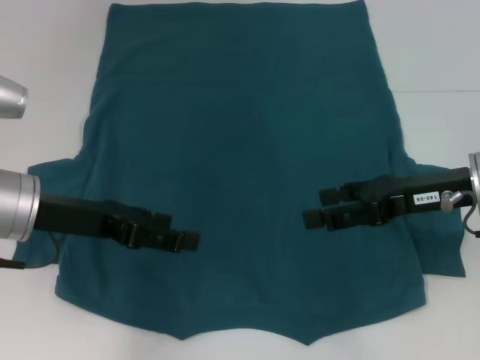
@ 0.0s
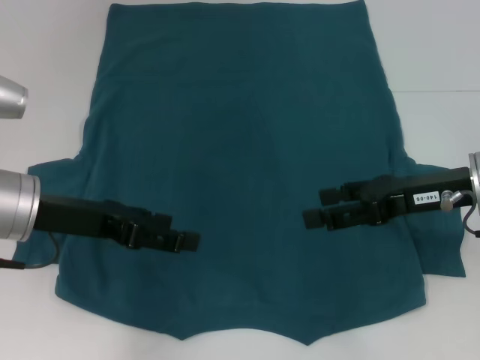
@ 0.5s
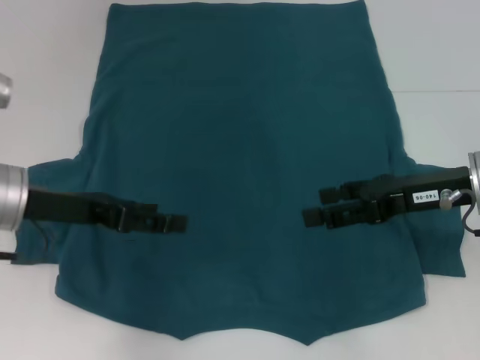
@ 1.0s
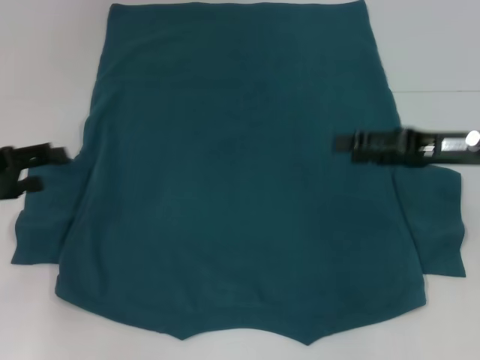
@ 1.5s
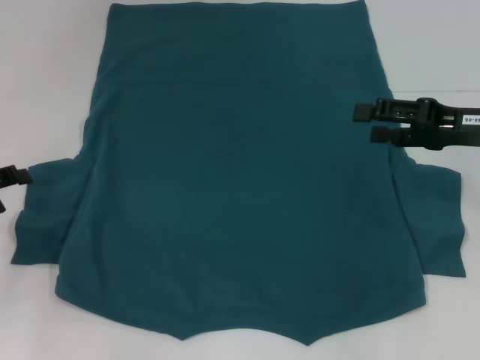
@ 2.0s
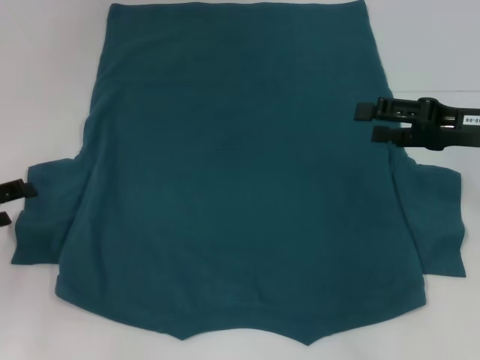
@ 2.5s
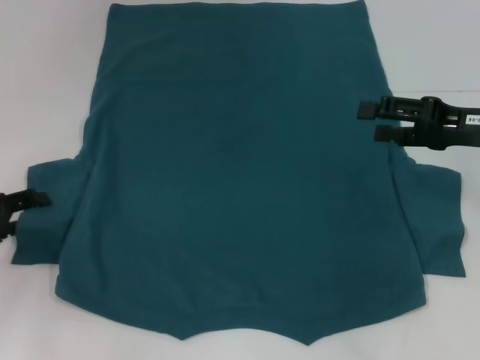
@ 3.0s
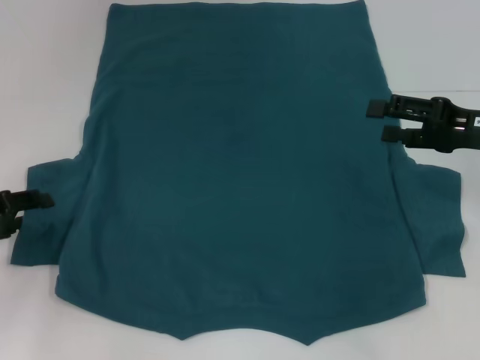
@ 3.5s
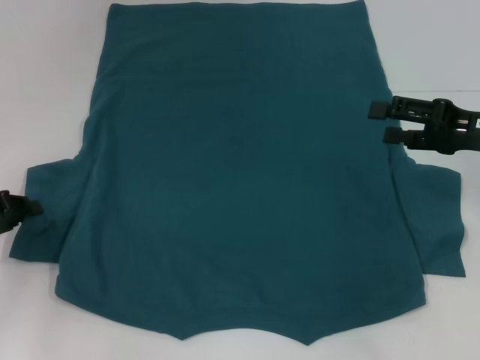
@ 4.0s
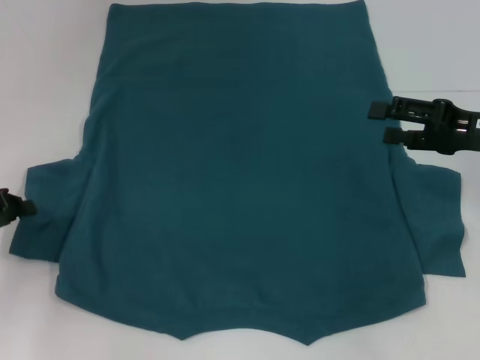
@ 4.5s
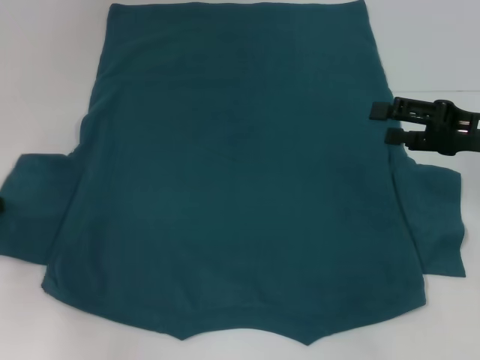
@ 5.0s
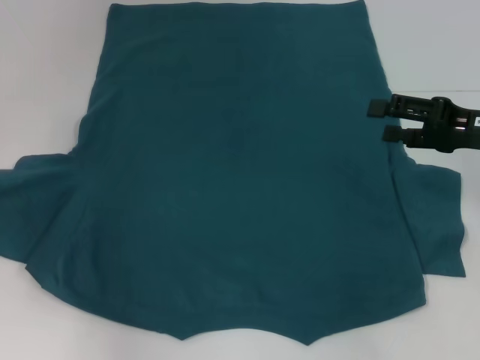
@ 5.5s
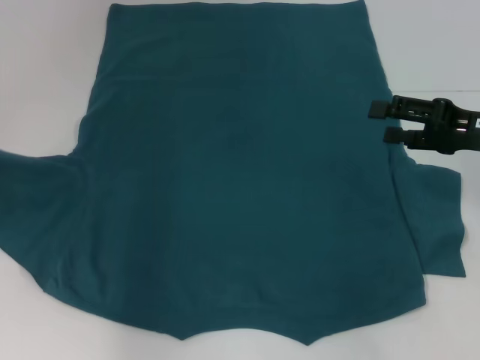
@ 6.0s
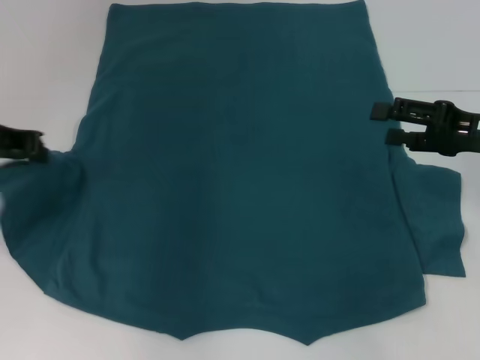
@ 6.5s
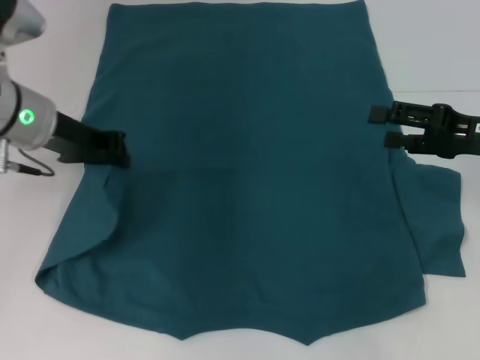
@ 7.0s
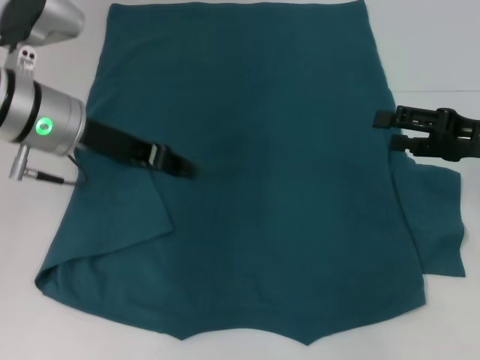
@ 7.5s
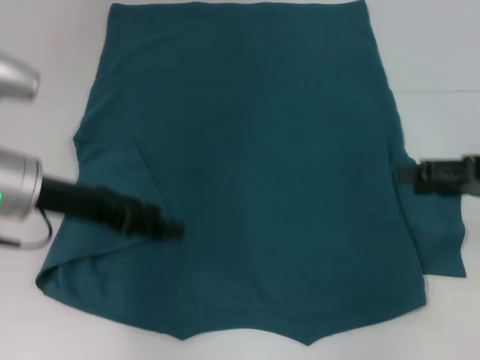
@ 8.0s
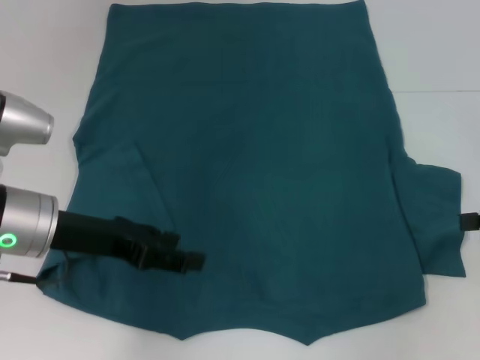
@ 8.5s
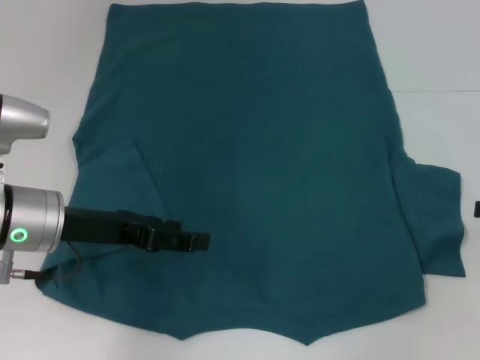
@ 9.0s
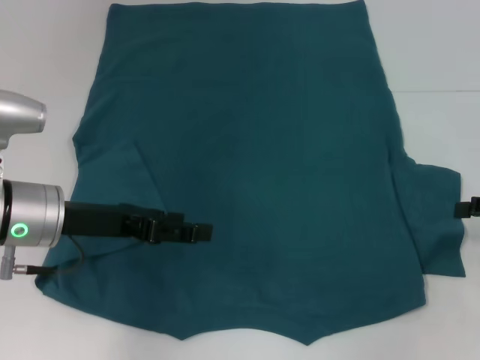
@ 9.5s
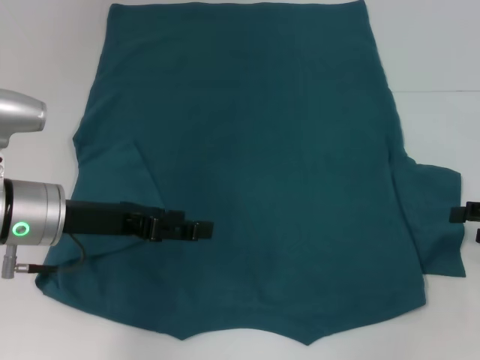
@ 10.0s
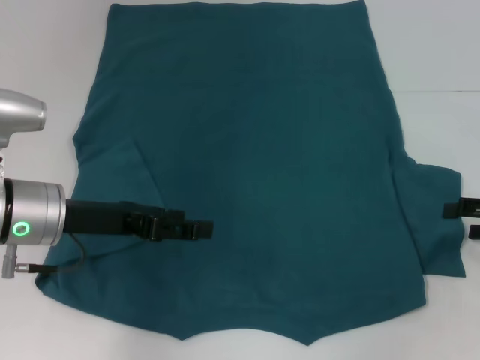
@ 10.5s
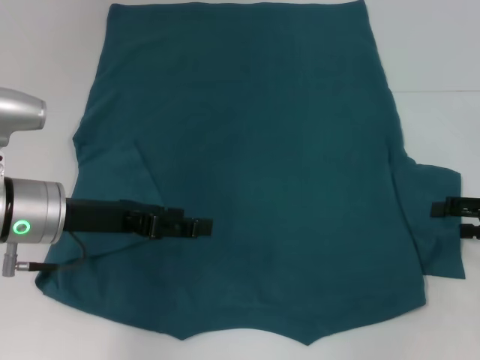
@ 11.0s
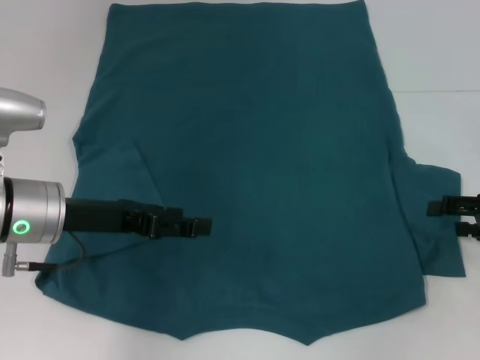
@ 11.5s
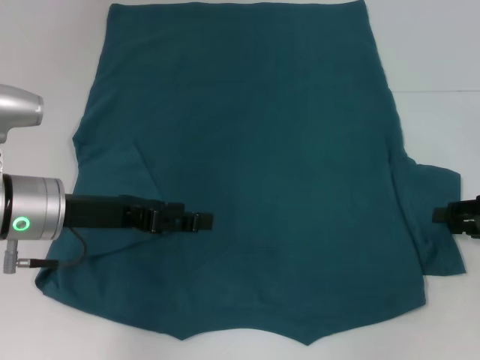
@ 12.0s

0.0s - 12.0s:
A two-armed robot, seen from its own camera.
Step, 0.0s - 7.0s: Fold the bottom left sleeve with your left hand.
0.0s - 2.0s: The left gripper shifts roughly 15 cm to the left, while the right gripper moves to the right, approximately 5 cm.
2.0s - 4.0s: The left gripper closes up.
4.0s - 6.0s: The left gripper is displaced upward and forward by about 10 cm, and closes its fingers.
6.0s - 8.0s: The left gripper heads to the right, covering some 10 cm, and opens.
8.0s - 10.0s: The right gripper ends up approximately 5 cm from where it was.
10.0s - 12.0s: The grippers move only a little.

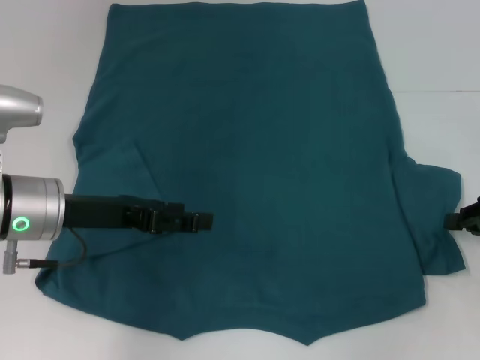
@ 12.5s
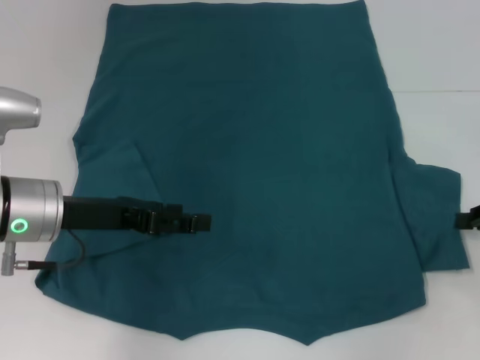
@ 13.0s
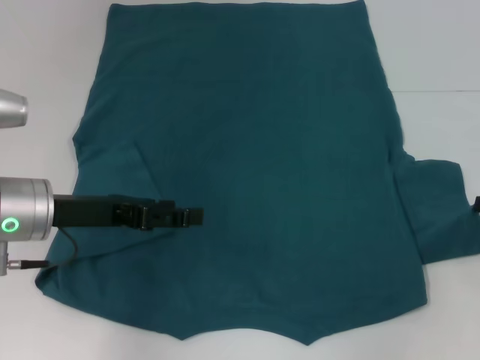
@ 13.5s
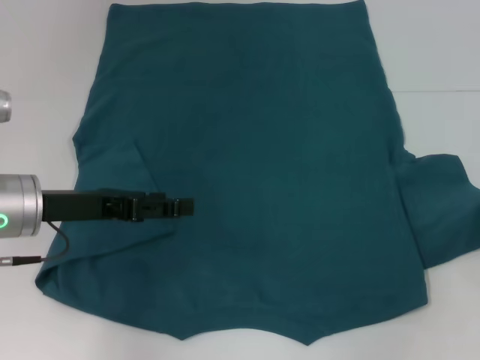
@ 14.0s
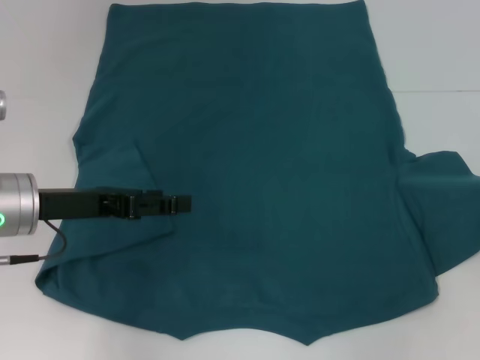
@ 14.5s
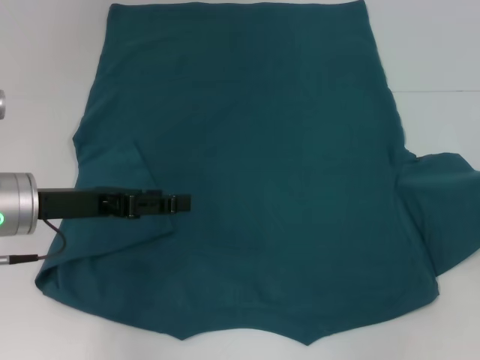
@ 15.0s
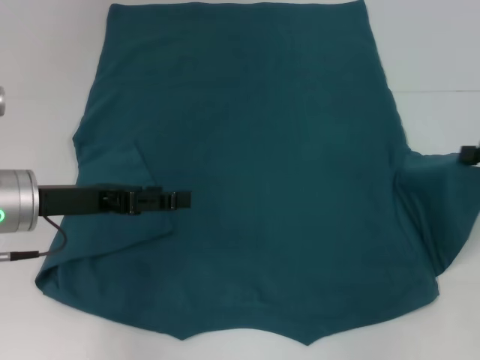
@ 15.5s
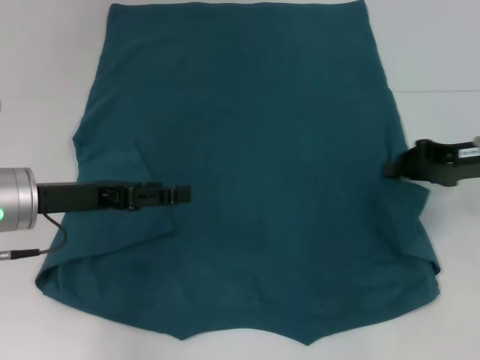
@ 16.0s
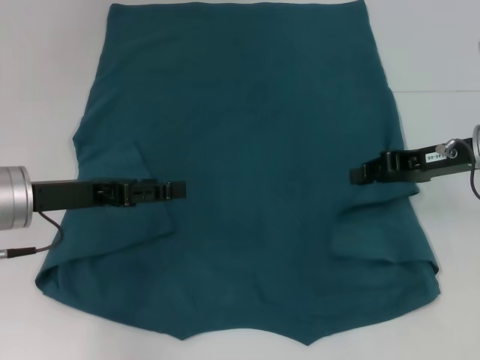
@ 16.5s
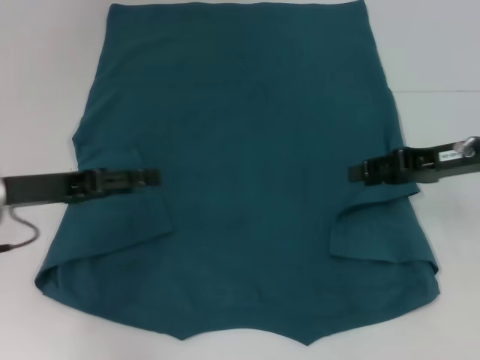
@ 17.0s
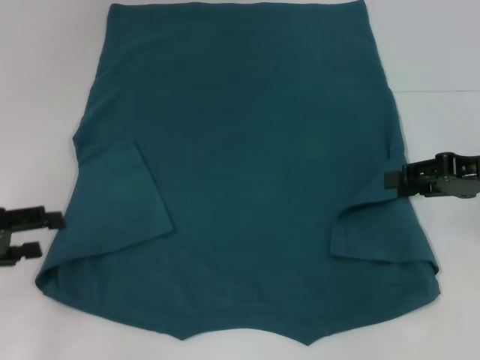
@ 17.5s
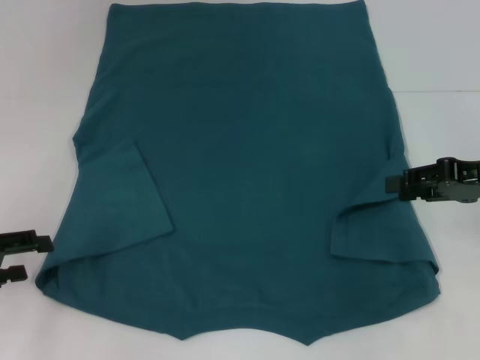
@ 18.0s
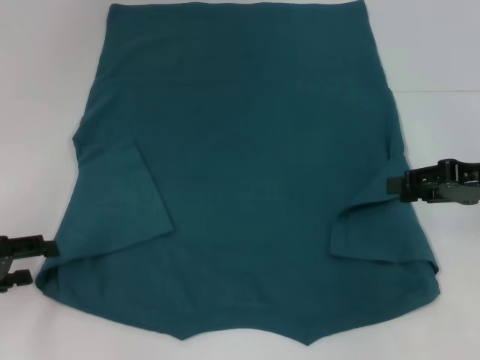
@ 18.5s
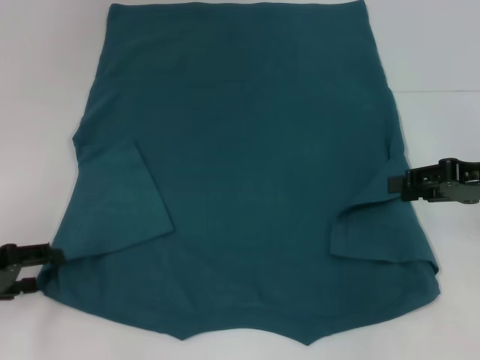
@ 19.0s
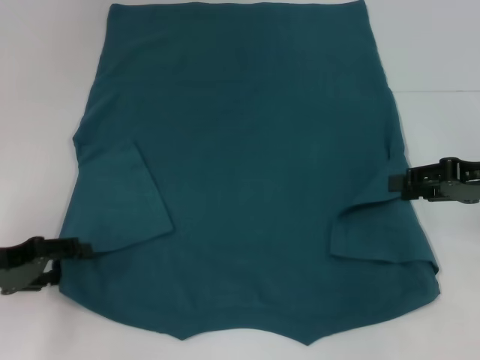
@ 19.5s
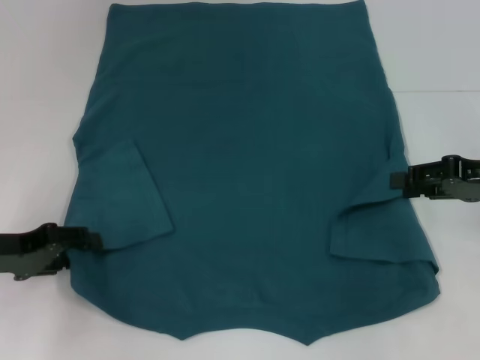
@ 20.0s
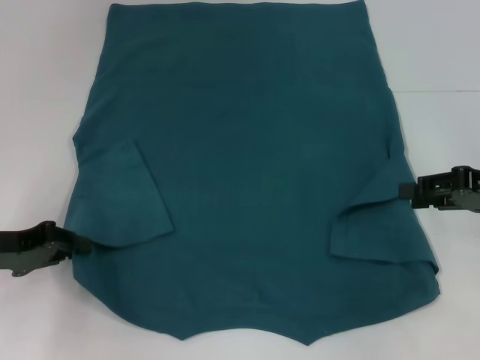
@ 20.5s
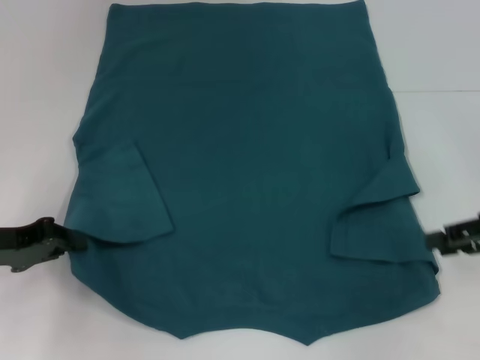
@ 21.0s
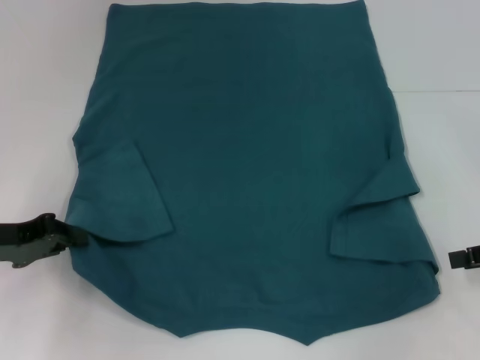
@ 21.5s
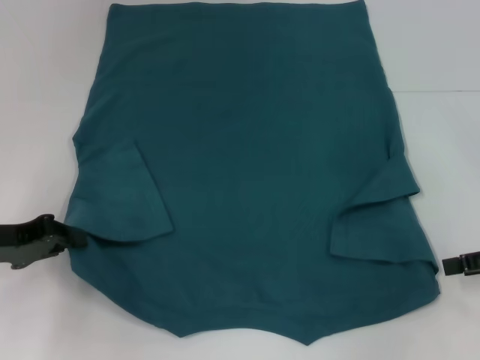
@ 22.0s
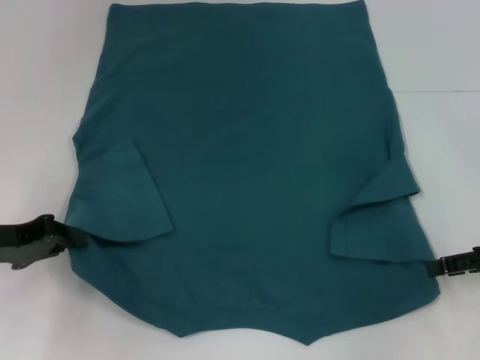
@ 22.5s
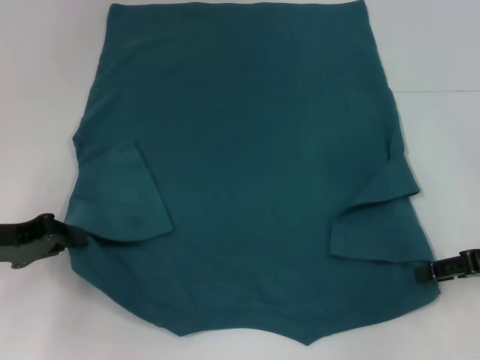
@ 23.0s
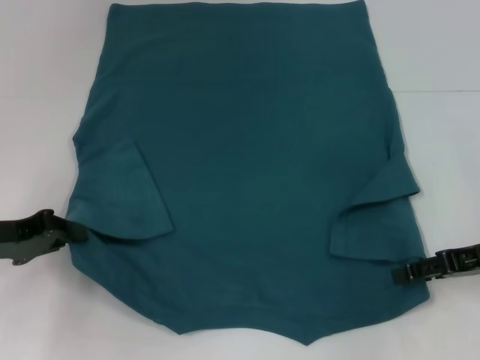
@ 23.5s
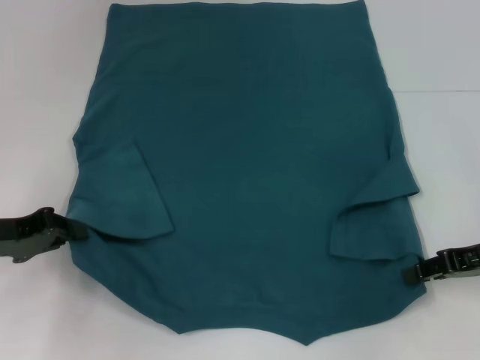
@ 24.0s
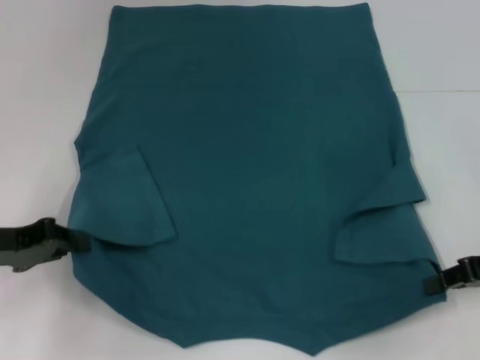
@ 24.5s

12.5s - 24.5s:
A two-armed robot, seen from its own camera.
Step, 12.5s - 16.5s: Fold the bottom right sleeve to the right.
Step, 17.0s - 20.5s: Grab the bottom left corner with your left hand.
Step, 21.0s - 24.0s: Grab the bottom right corner with your right hand.
12.5s - 14.5s: The right gripper heads to the right, covering roughly 5 cm.
14.5s - 16.5s: The right gripper goes about 15 cm to the left.
16.5s - 18.5s: The left gripper moves to the left and backward, about 10 cm. The right gripper shifts approximately 5 cm to the right, and opens its fingers.
18.5s - 20.5s: The left gripper closes up.
20.5s - 22.5s: The grippers stay close to where they were, moving slightly.
22.5s - 24.5s: The right gripper closes its fingers.

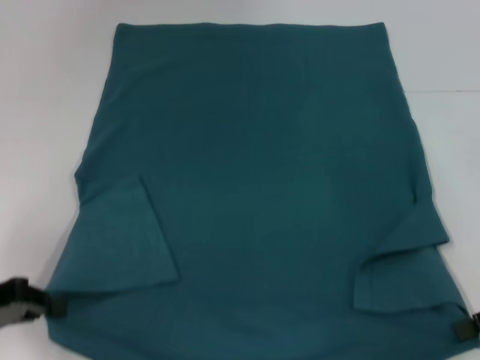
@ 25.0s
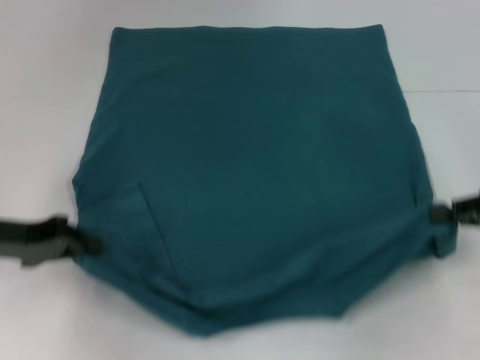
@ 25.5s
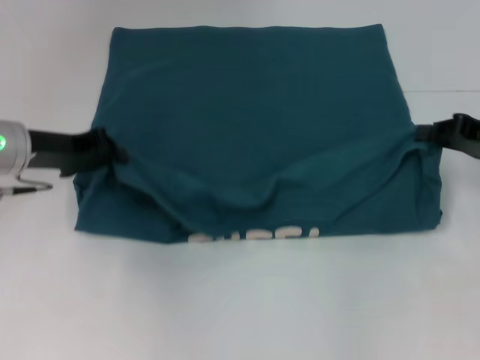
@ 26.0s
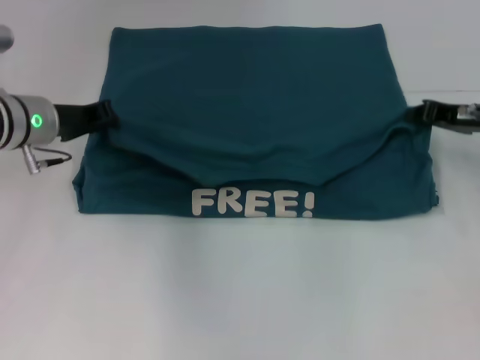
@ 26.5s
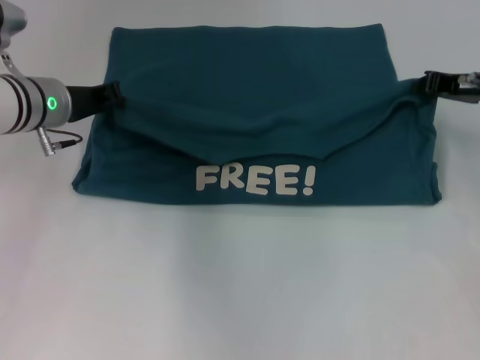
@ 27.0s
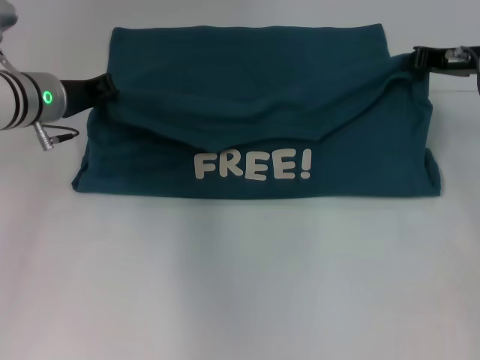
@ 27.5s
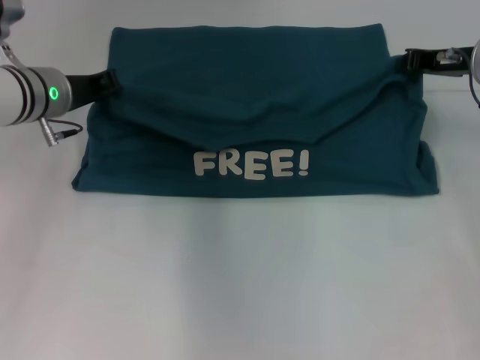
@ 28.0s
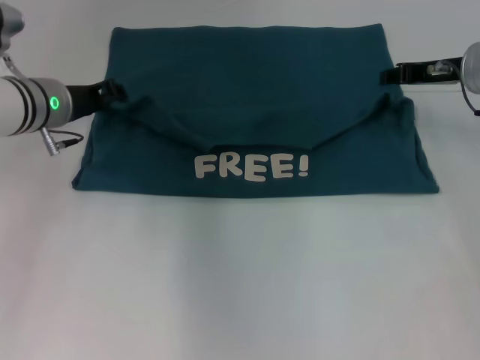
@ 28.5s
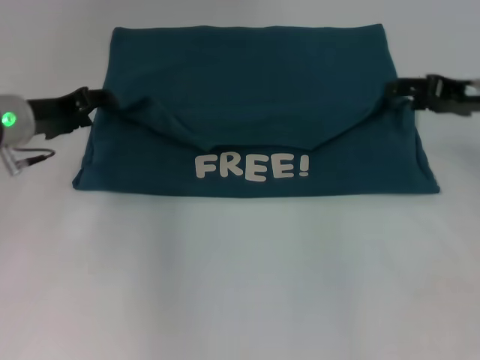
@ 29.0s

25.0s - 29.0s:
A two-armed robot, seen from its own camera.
Step, 25.0s - 28.0s: Fold the clothes to the left.
25.0s - 27.0s: The left gripper goes about 20 cm forward and to the right. The right gripper travels forward by about 15 cm.
27.0s - 29.0s: The right gripper opens up. The left gripper opens.
